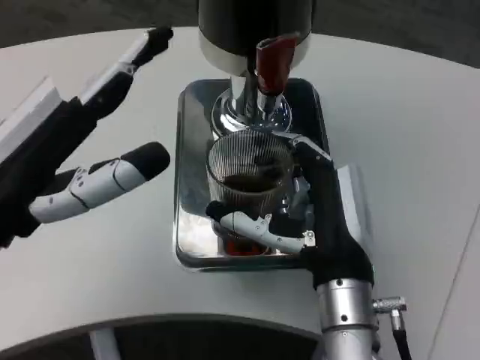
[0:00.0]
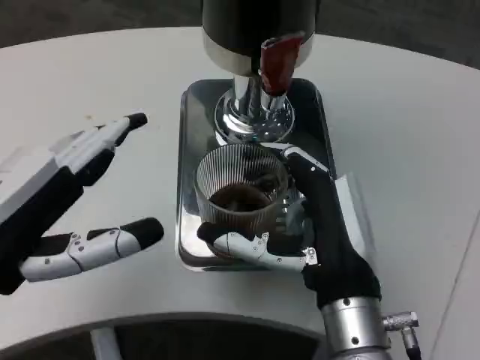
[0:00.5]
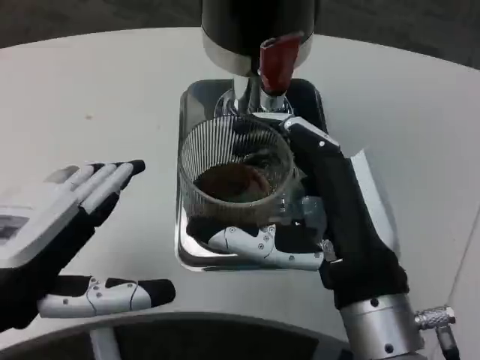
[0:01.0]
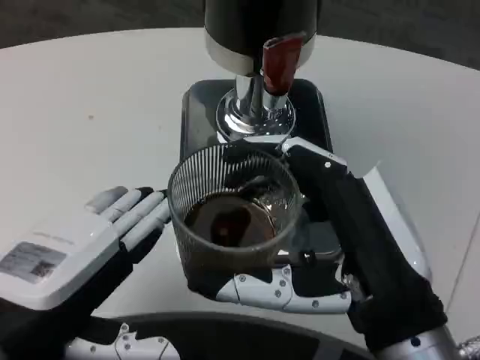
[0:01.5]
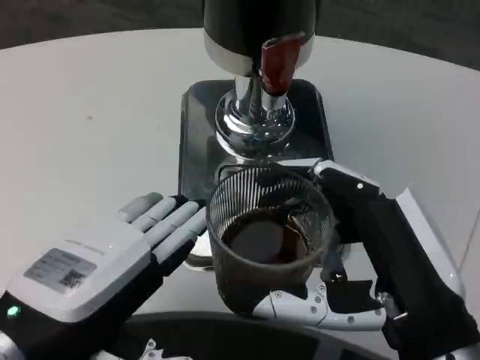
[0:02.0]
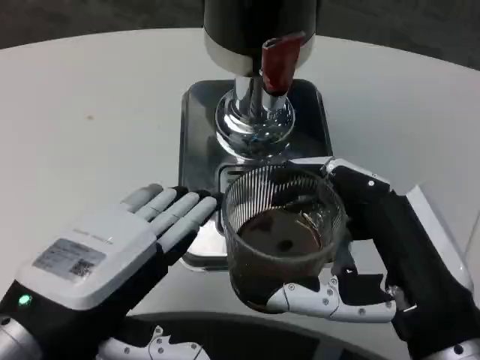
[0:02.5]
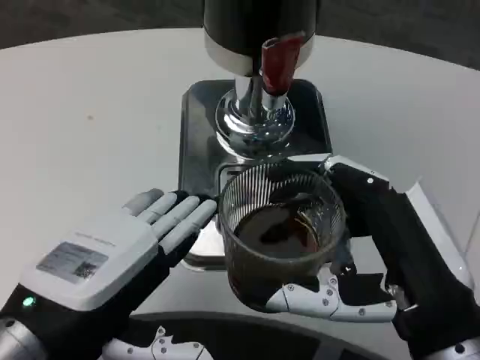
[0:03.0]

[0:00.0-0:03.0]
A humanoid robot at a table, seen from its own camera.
Task of the whole recording: Grasp the cup under the faucet to collect the drink, then remove the cup.
0:00.0 to 0:01.5: The right hand heads backward and upward, covering roughly 10 cm. The left hand is displaced backward by approximately 5 cm.

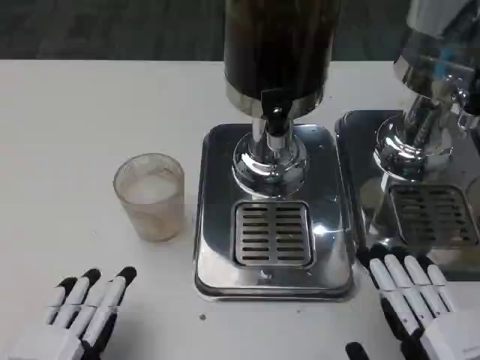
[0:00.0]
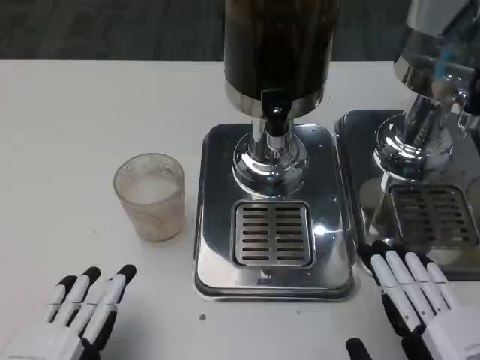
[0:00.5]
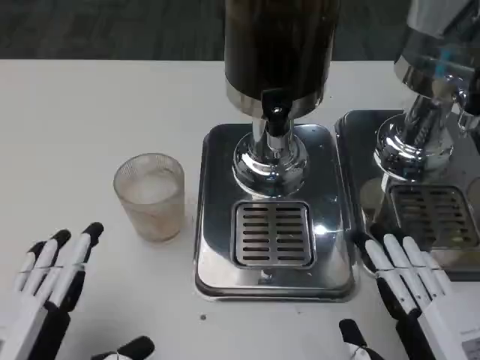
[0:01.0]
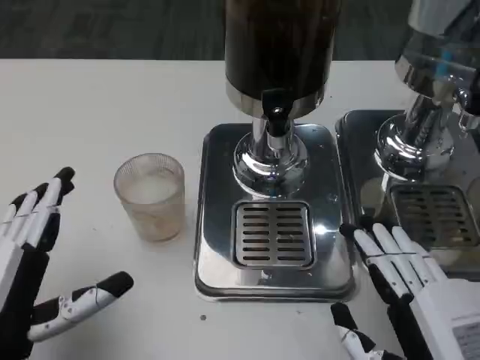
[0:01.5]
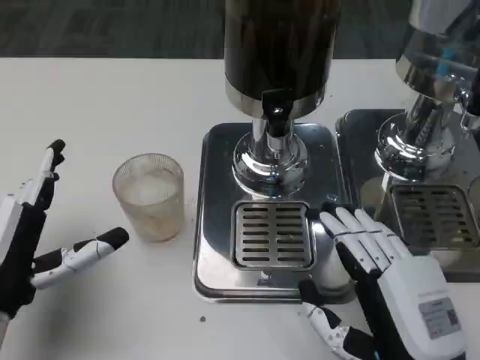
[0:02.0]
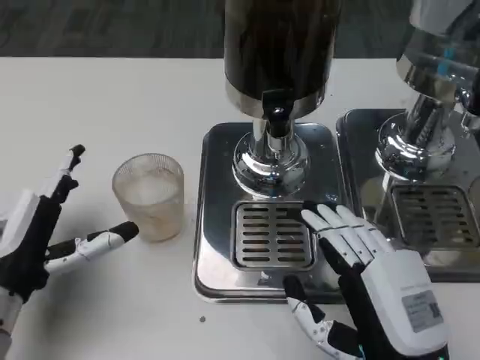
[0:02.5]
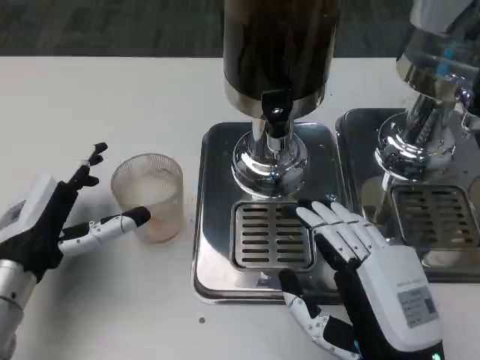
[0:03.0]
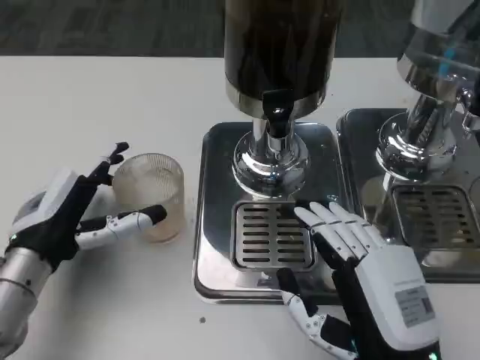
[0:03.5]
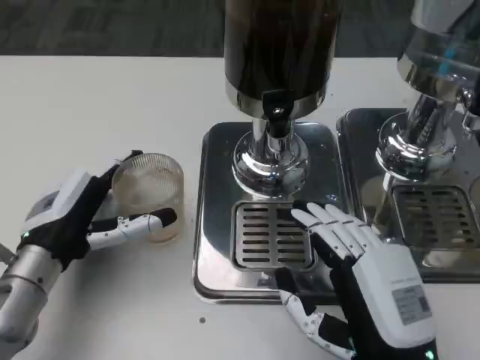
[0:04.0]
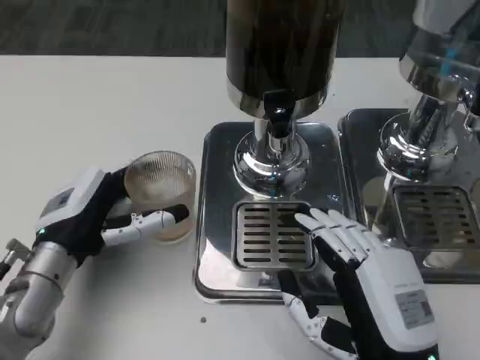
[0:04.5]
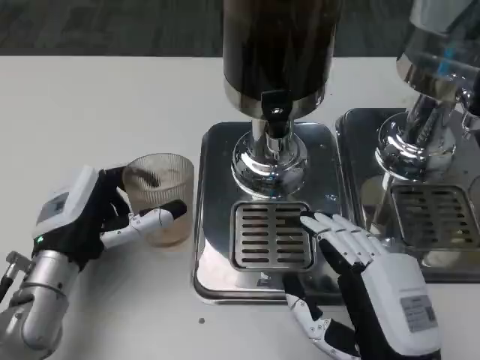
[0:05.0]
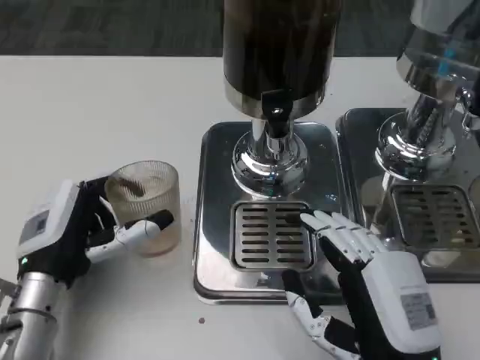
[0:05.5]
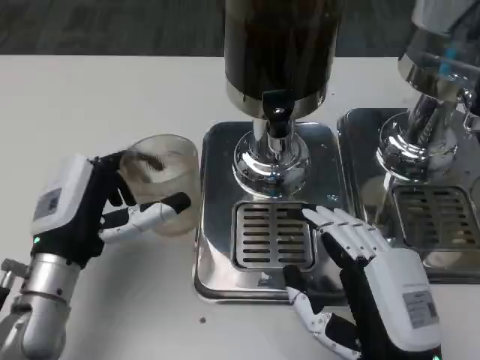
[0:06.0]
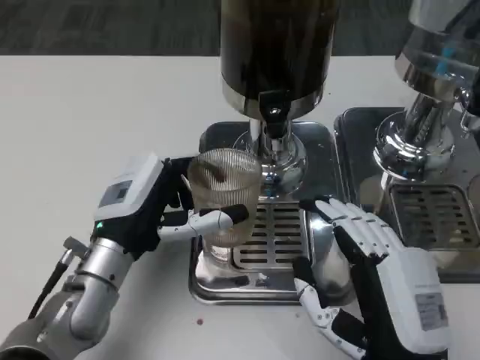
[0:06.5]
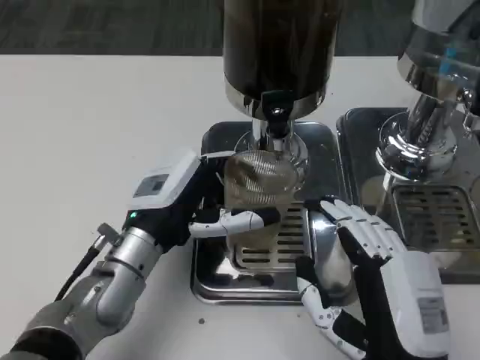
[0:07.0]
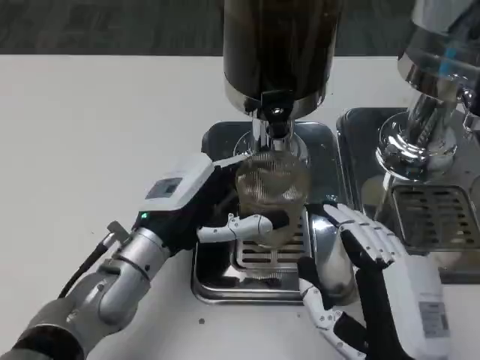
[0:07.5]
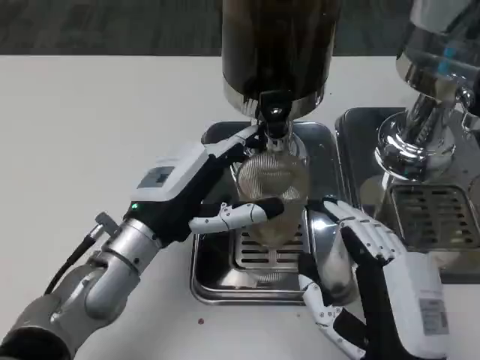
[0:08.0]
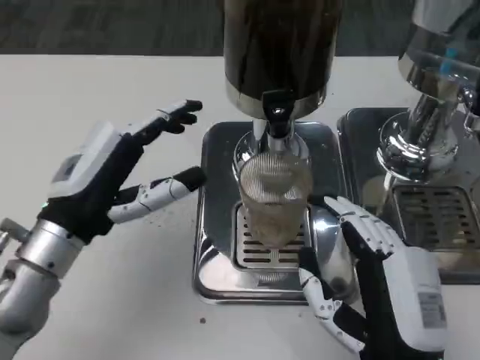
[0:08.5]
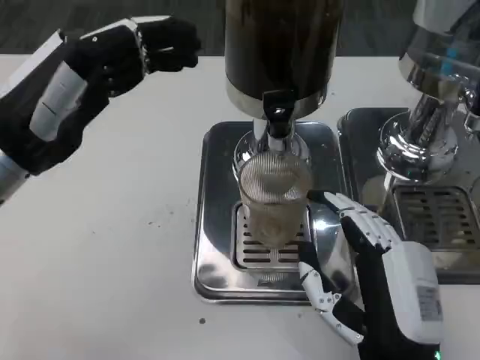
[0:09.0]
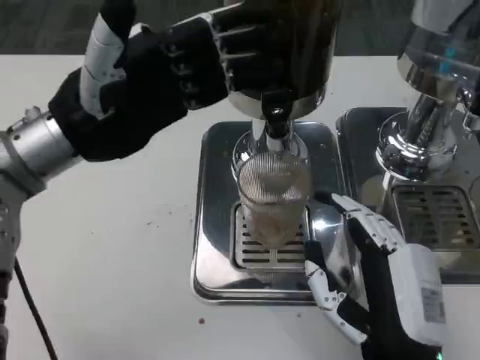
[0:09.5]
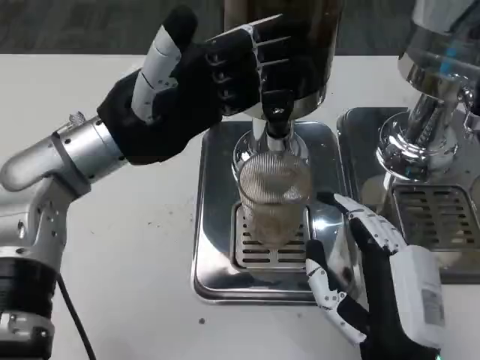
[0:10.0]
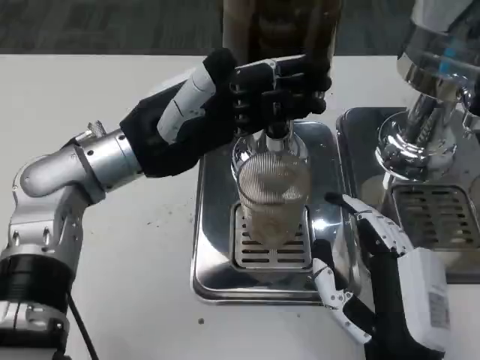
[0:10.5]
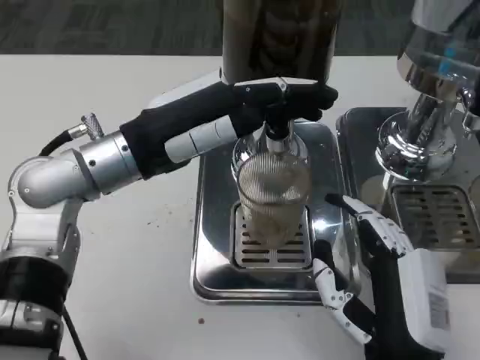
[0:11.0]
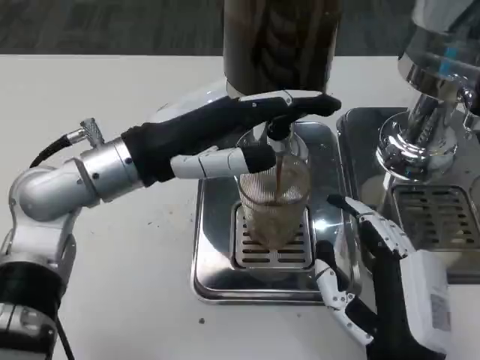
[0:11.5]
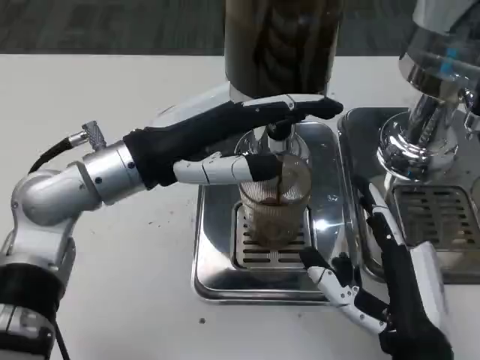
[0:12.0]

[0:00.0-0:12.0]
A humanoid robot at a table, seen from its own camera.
Task of the whole recording: Grasp the cup under the faucet to collect the drink, then remove the cup.
0:00.0 to 0:02.0: The left hand heads forward, covering approximately 10 cm; the right hand travels to the left by approximately 5 cm.
0:02.0 to 0:04.0: The left hand heads forward, covering some 5 cm.
0:04.0 to 0:06.0: The hands make only small movements.
0:06.0 to 0:08.0: The left hand shifts roughly 5 cm to the right.
0:08.0 to 0:10.0: The left hand goes roughly 10 cm upward and forward.

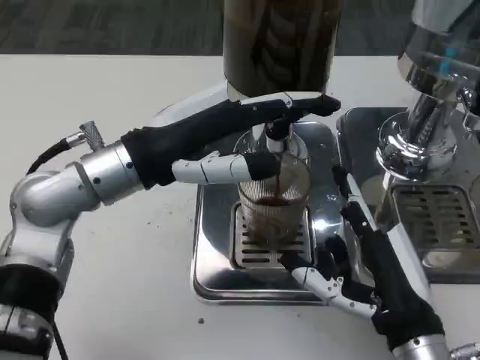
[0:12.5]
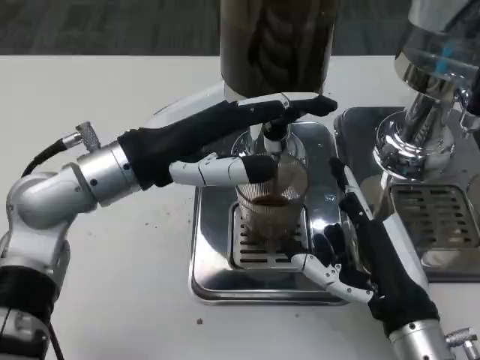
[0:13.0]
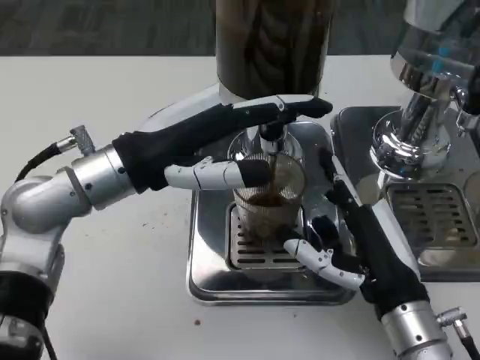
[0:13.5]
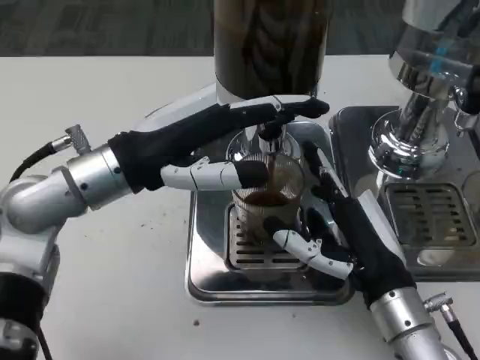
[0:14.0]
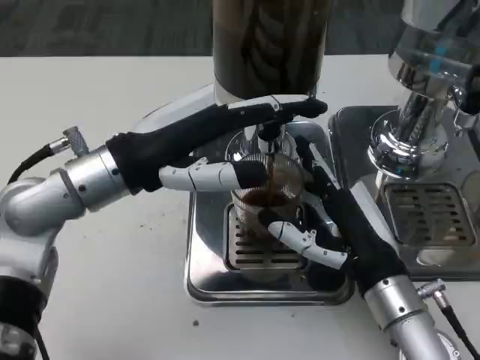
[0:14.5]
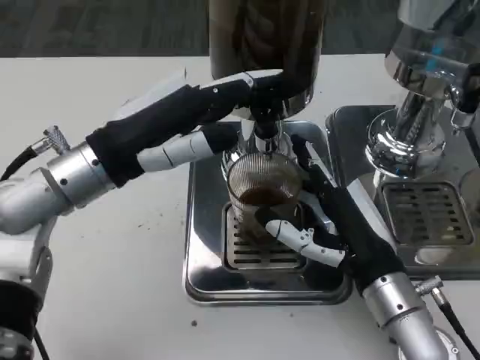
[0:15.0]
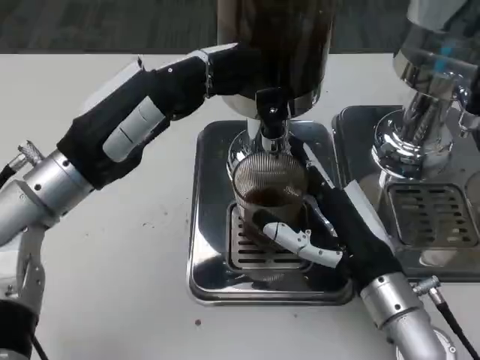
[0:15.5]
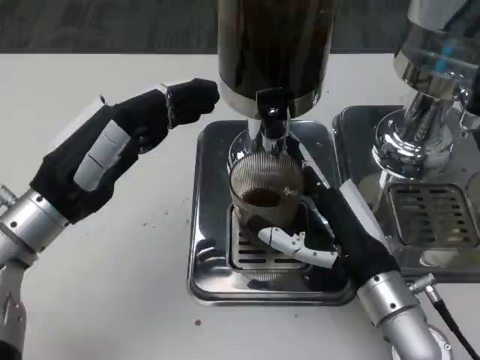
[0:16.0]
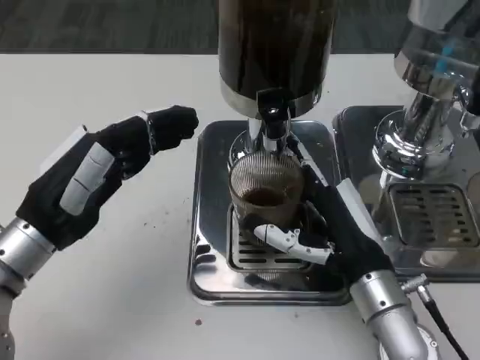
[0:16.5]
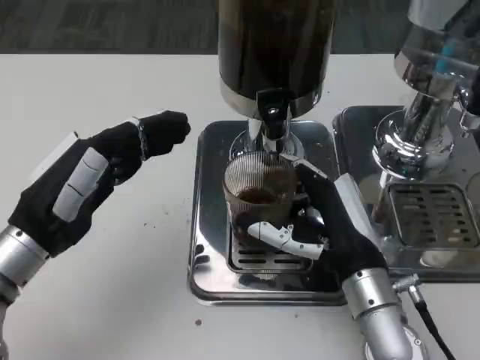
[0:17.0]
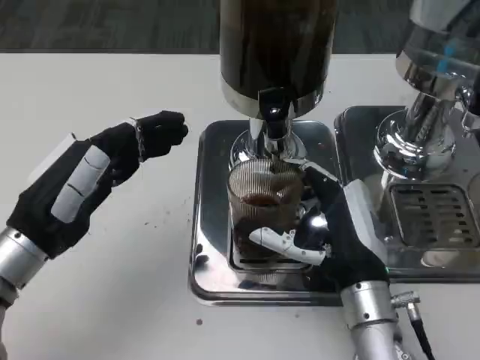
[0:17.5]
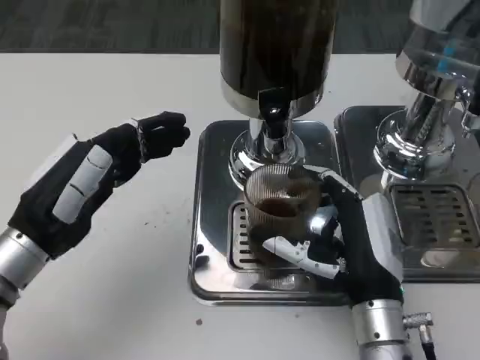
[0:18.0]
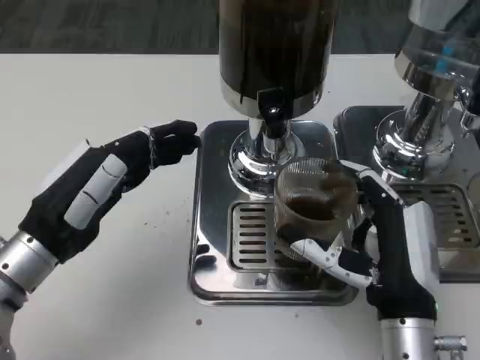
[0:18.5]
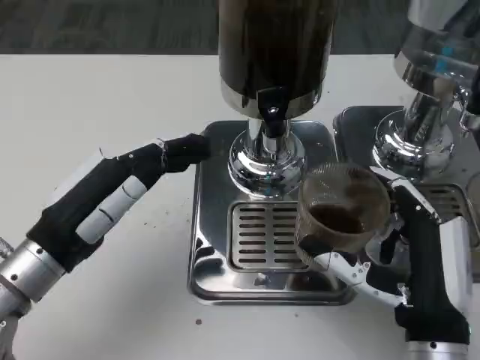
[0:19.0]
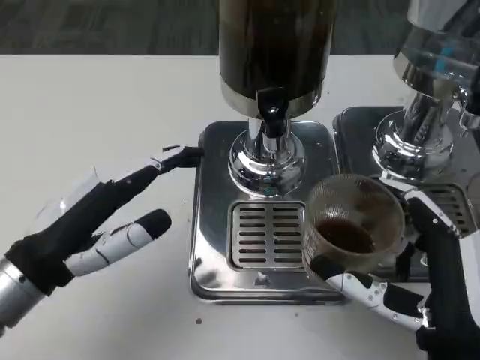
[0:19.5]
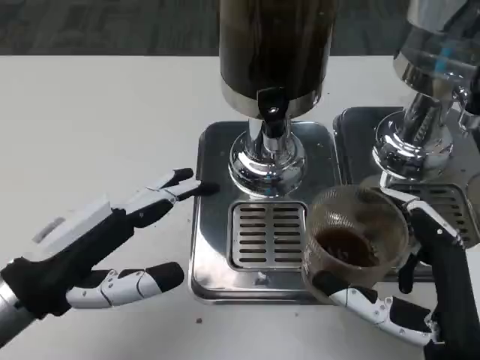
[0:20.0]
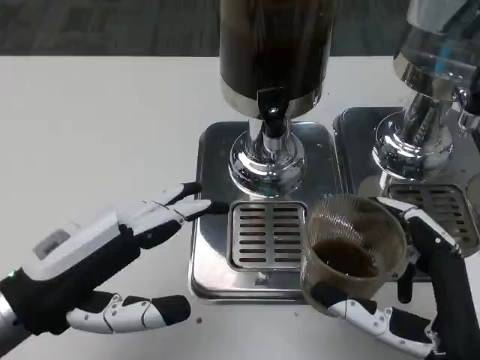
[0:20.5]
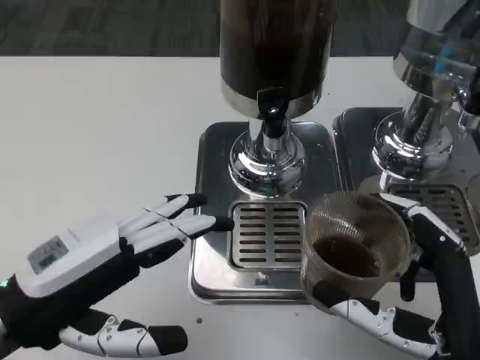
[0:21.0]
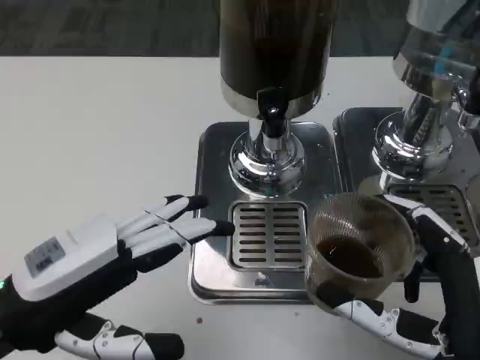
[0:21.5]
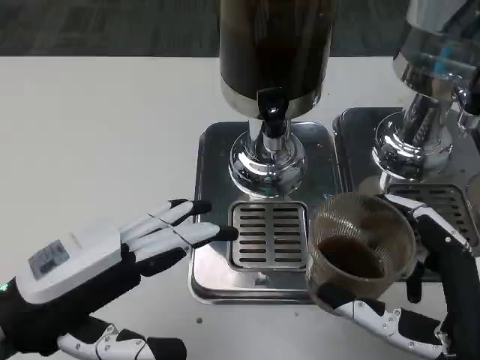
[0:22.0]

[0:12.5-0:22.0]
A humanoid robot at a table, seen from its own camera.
Task of the whole recording: Grasp the cup under the faucet to collect the drink, then remove the cup.
0:12.5 to 0:14.5: The right hand goes approximately 5 cm forward.
0:14.5 to 0:16.5: The left hand shifts roughly 10 cm to the left, downward and backward.
0:16.5 to 0:18.0: The hands move only a little.
0:18.0 to 0:20.0: The left hand ends up about 5 cm from where it was. The right hand travels backward by roughly 10 cm.

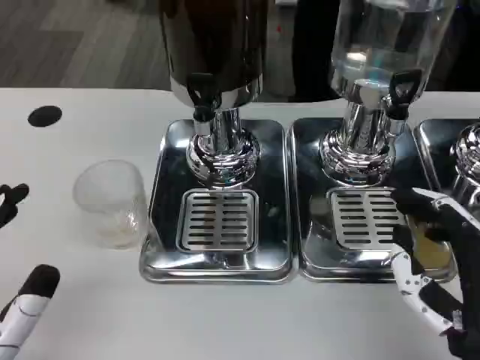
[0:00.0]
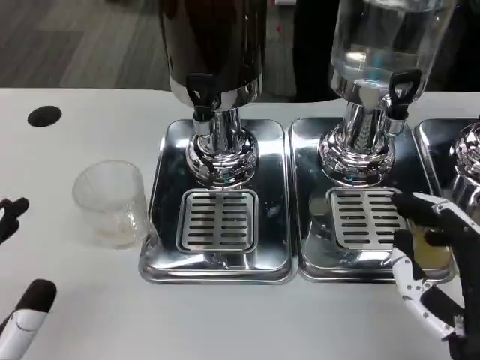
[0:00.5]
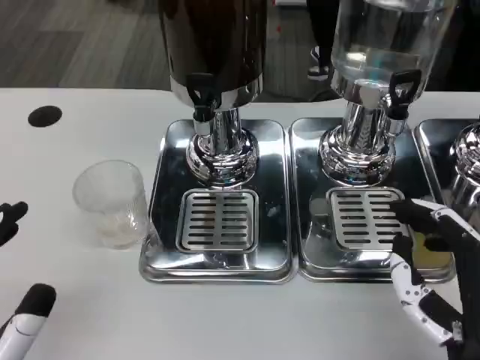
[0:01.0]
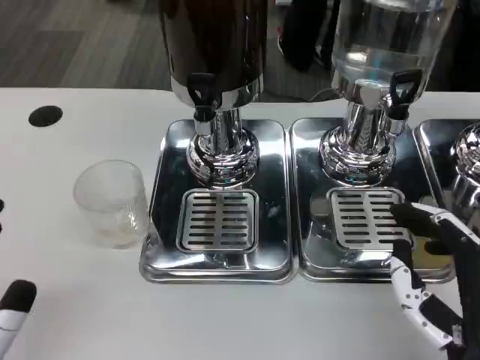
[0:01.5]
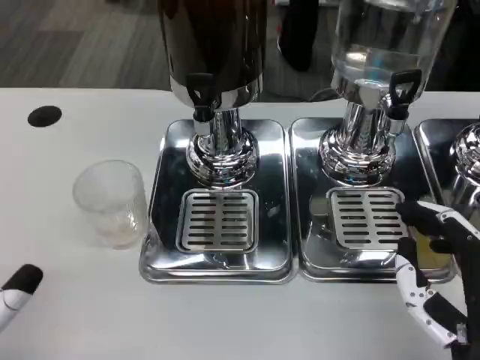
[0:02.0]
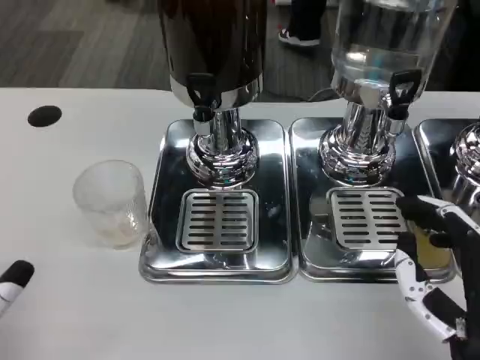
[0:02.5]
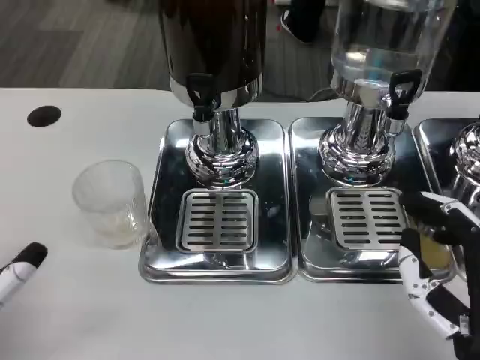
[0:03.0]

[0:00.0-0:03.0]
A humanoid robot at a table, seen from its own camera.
Task of the whole recording: Grasp the cup under the faucet to collect the drink, then remove the cup.
0:00.0 to 0:01.5: There are only small adjustments of the hands.
0:01.5 to 0:03.0: The left hand shifts approximately 5 cm forward.
